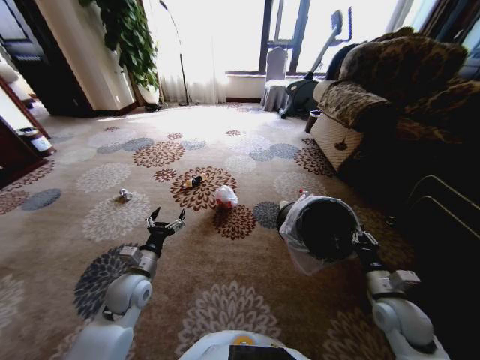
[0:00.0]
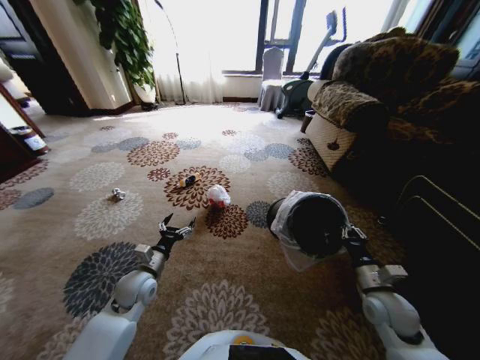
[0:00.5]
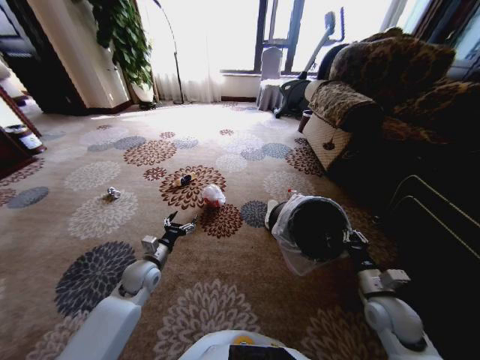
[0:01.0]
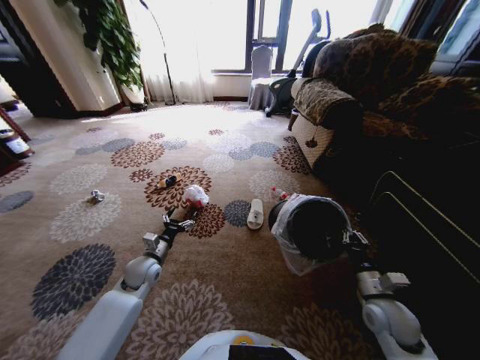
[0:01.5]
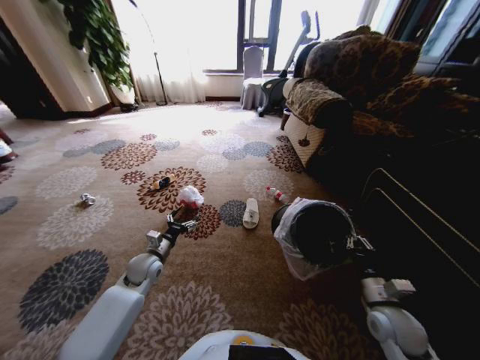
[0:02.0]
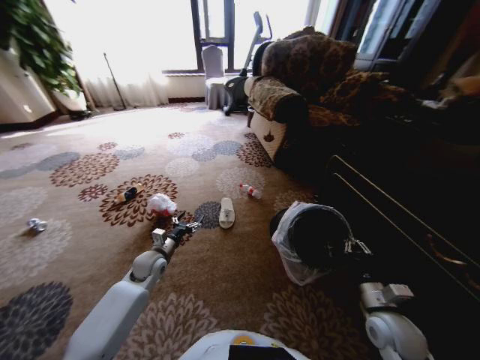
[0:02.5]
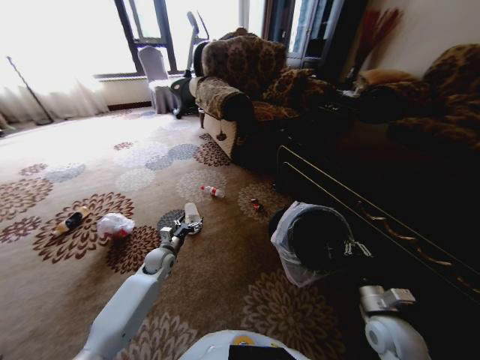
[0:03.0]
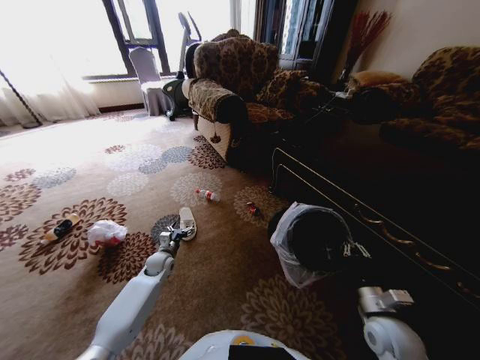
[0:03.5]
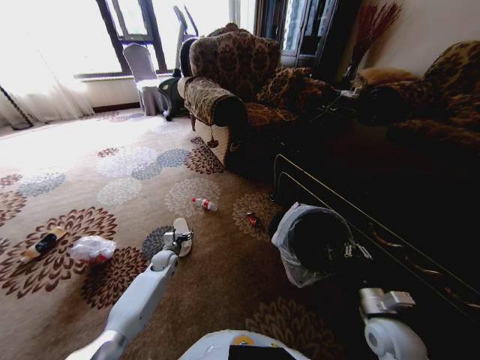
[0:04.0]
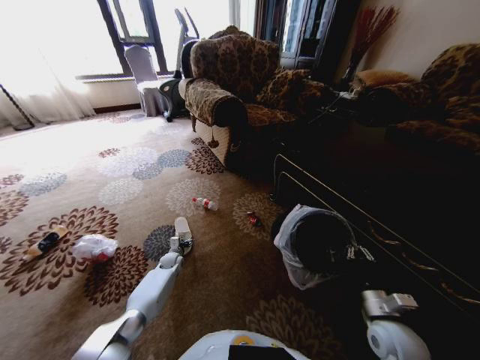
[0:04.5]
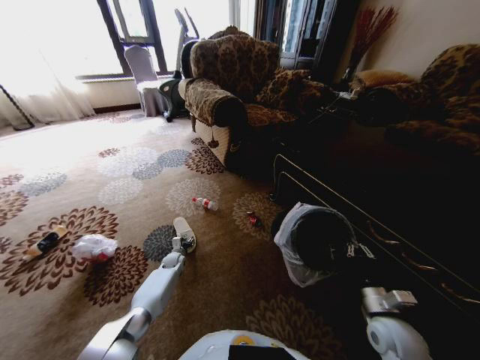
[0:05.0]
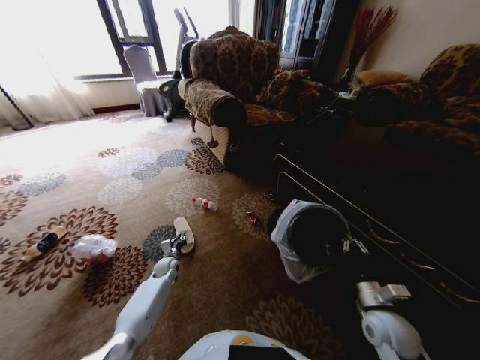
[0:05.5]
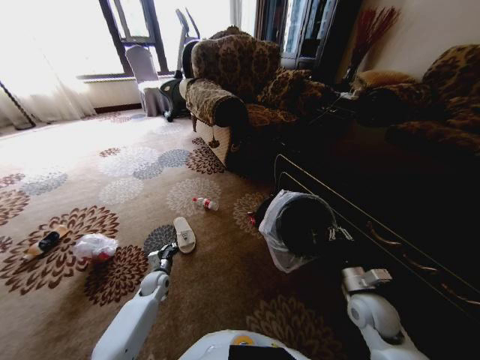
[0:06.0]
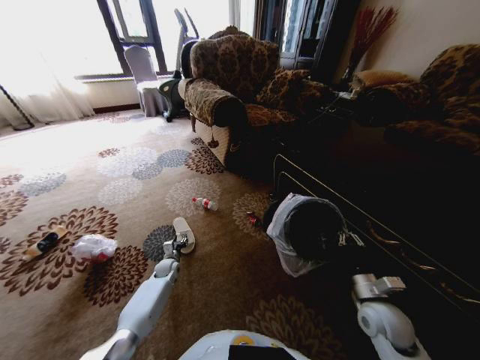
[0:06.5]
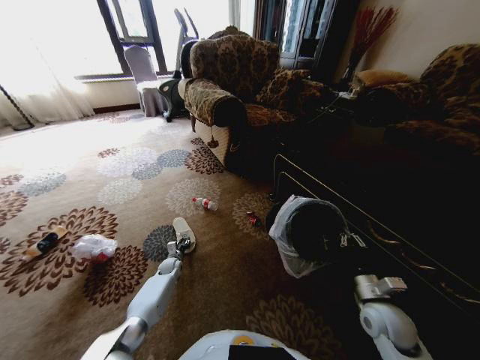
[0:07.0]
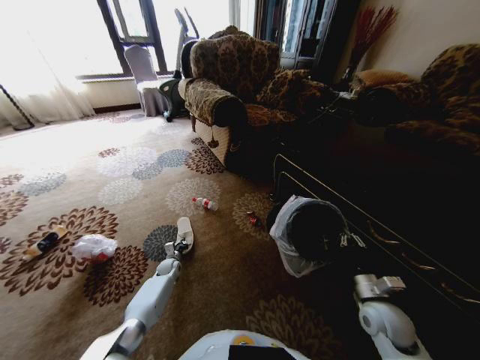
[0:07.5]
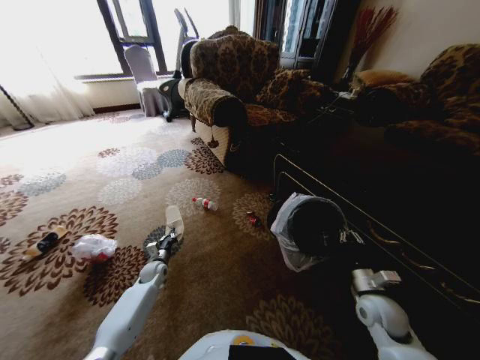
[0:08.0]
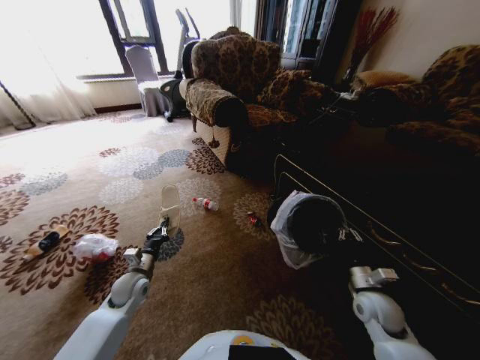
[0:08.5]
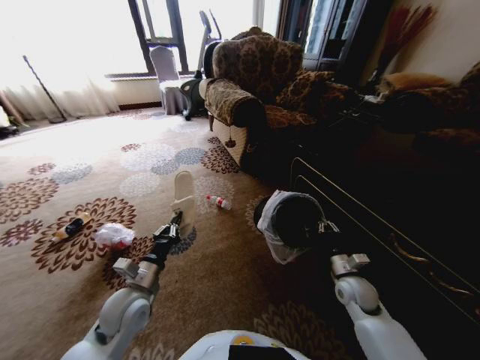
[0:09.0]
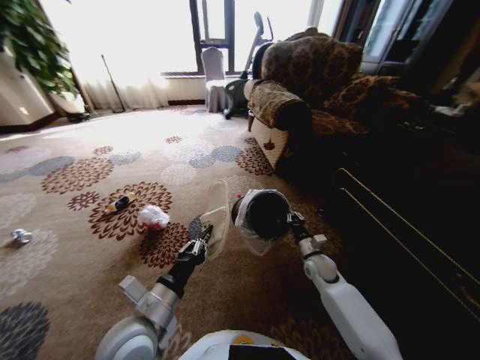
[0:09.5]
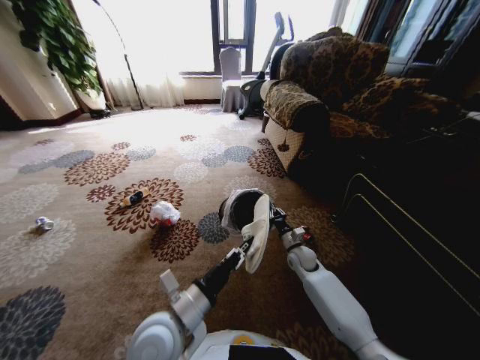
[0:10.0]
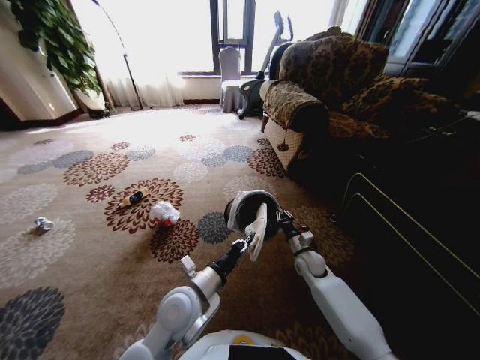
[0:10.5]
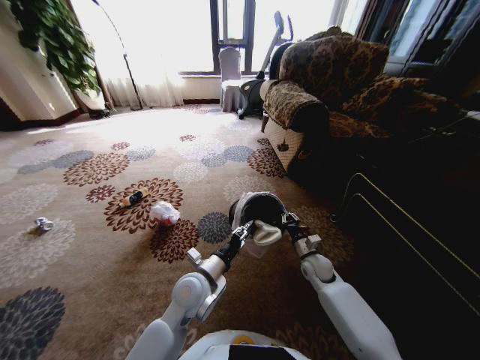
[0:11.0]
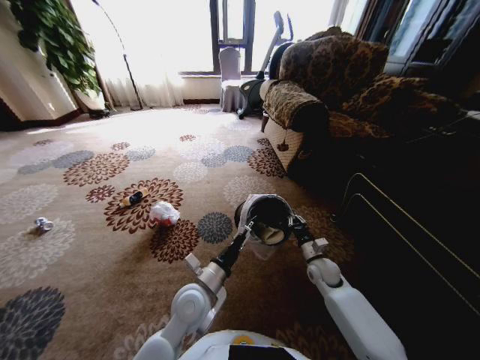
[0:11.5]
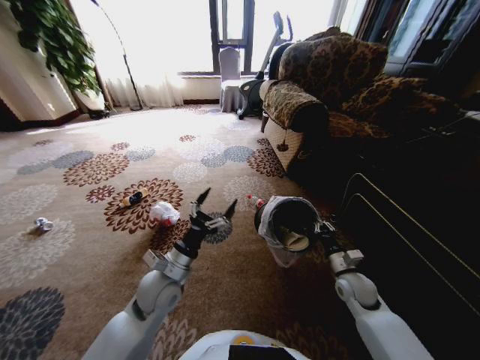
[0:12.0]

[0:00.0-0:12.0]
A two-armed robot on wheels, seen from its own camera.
Task of the whole recording: Pick up the trash from the ground and place it into the trash bin.
0:00.0 to 0:02.0: The left gripper heads forward, covering roughly 10 cm.
0:02.0 to 0:04.0: The left gripper shifts some 15 cm downward and forward.
0:04.0 to 0:06.0: The left gripper is displaced backward by approximately 10 cm, and closes up; the right gripper heads forward, covering some 5 cm.
0:06.0 to 0:08.0: The left gripper opens and closes again.
0:08.0 to 0:10.0: The left gripper goes about 40 cm upward, backward and to the right, while the right gripper travels forward and to the left by roughly 20 cm.
0:10.0 to 0:12.0: The left gripper shifts roughly 10 cm forward, and opens; the right gripper is displaced to the right and backward by about 15 cm.

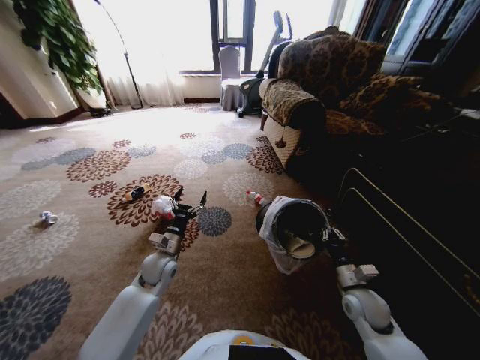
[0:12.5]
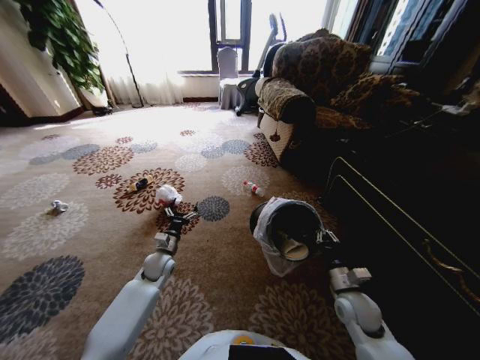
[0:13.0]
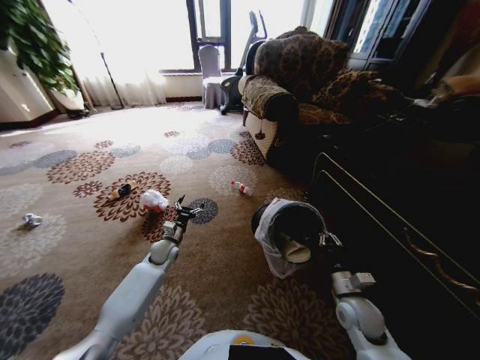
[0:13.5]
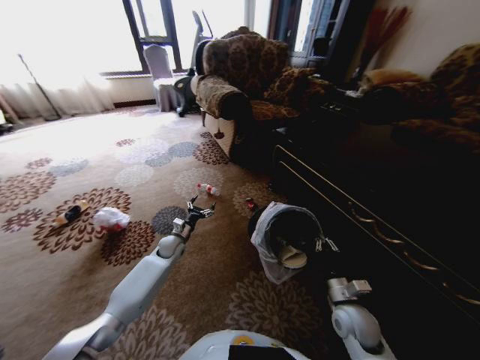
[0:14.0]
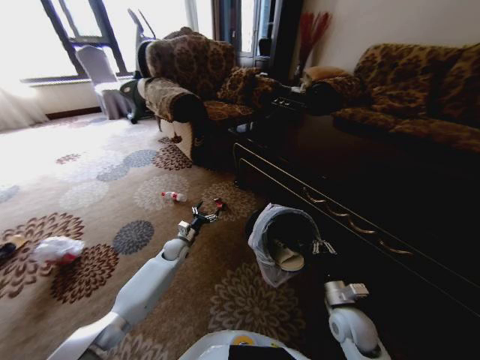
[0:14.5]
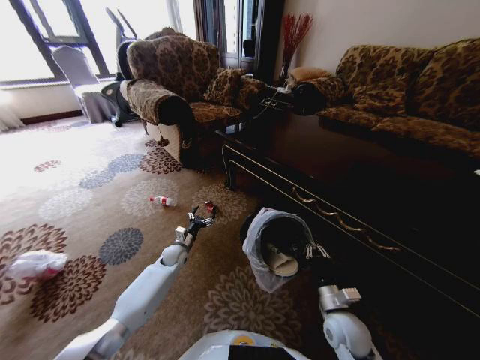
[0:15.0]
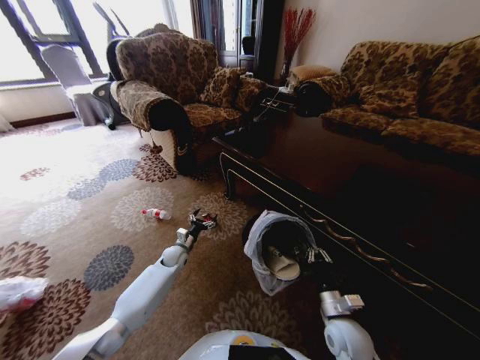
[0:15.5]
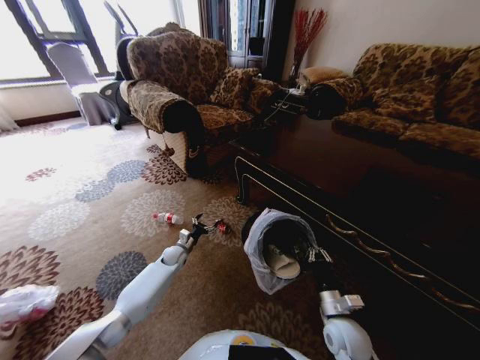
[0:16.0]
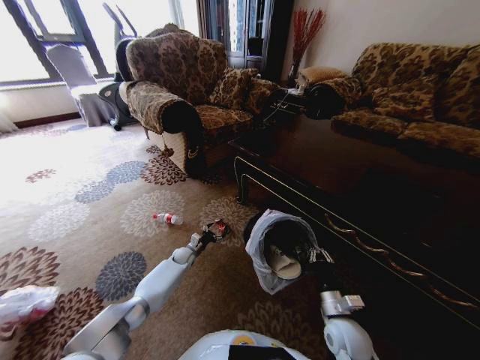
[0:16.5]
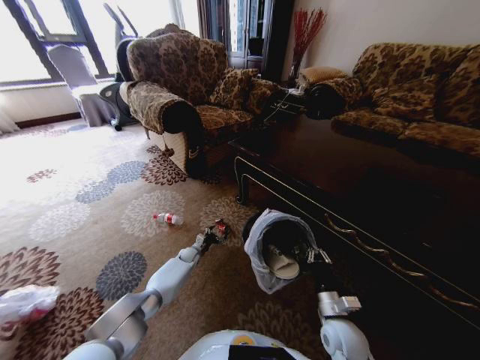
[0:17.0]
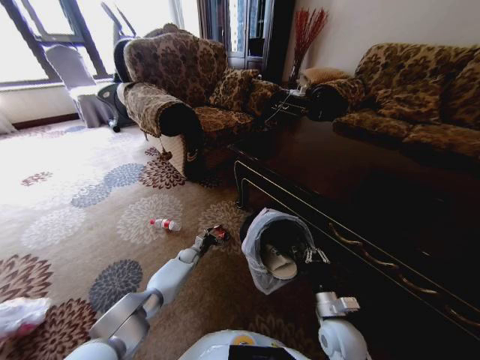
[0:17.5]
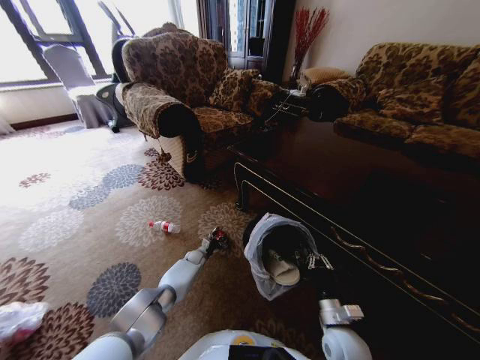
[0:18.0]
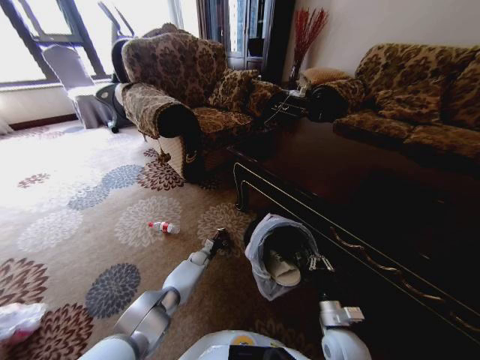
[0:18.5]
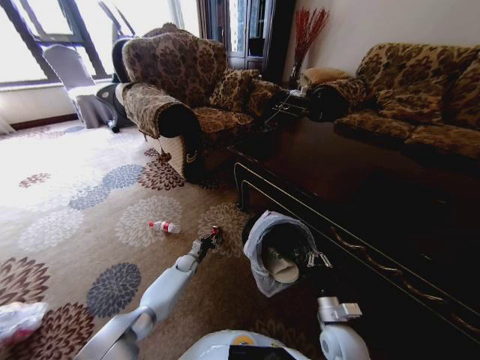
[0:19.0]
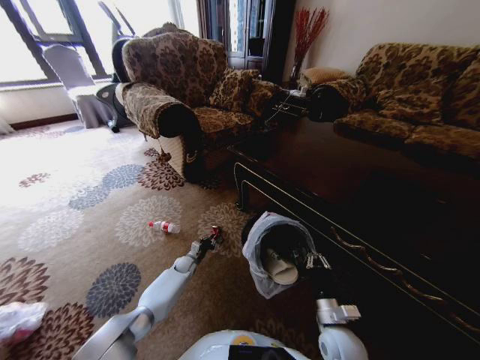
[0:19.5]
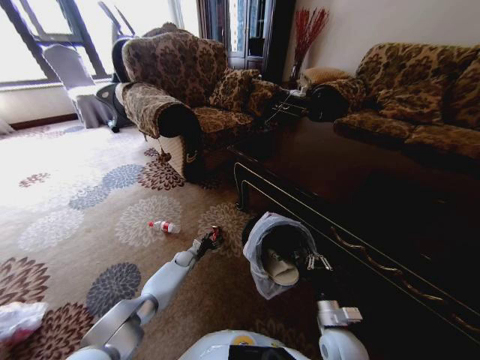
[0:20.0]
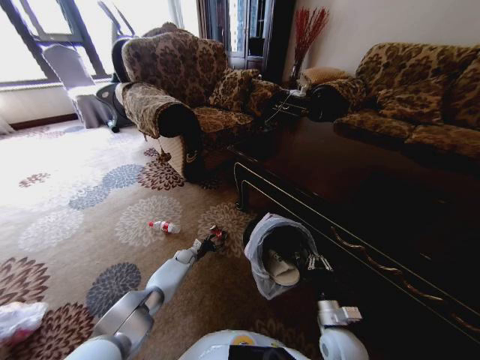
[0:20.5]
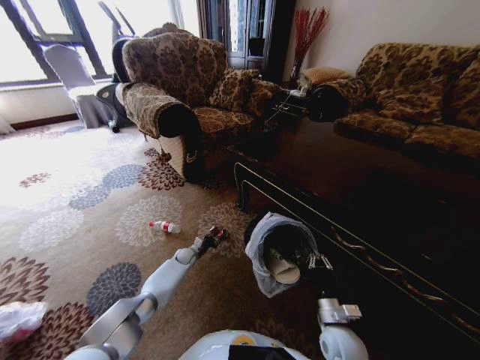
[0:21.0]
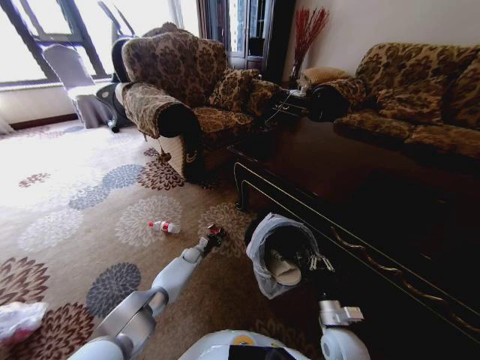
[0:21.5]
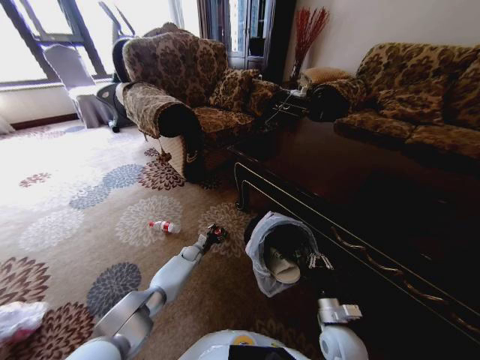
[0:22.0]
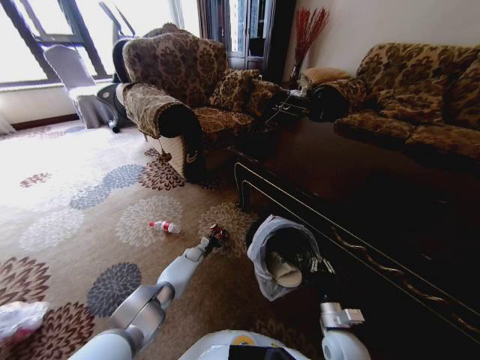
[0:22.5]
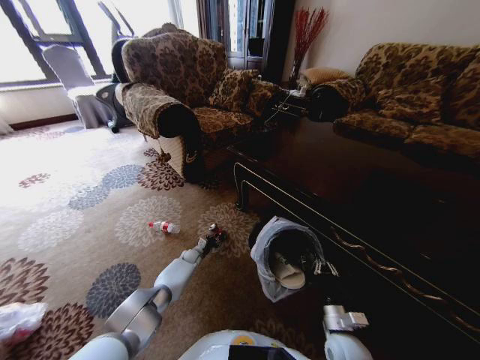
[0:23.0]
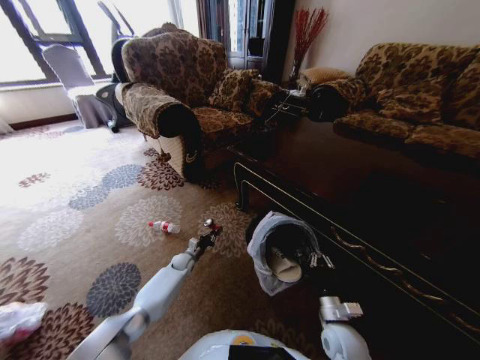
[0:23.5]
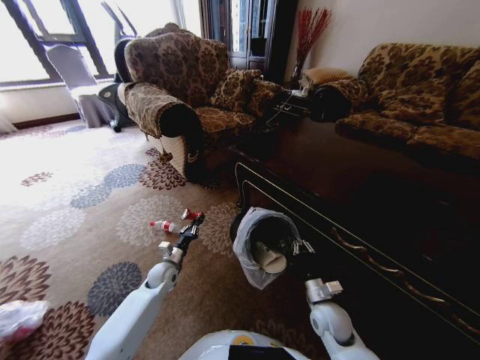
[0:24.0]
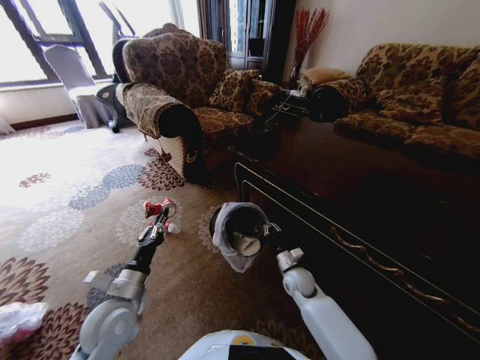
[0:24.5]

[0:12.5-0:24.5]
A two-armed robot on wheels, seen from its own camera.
Task of the whole recording: Pick up the trash from the ground and place it into the trash bin.
0:12.5 to 0:14.5: The left gripper shifts roughly 15 cm forward and downward; the right gripper shifts by about 5 cm.
0:14.5 to 0:16.5: The left gripper is displaced downward by some 10 cm.
0:16.5 to 0:18.5: The left gripper goes some 10 cm to the right and downward, and closes up.
0:18.5 to 0:20.5: The left gripper moves to the left, about 5 cm, and closes, then reopens.
0:20.5 to 0:22.5: The left gripper closes and opens again.
0:22.5 to 0:24.5: The left gripper travels upward and backward by about 40 cm, and closes. Meanwhile the right gripper travels forward and to the left by about 20 cm.

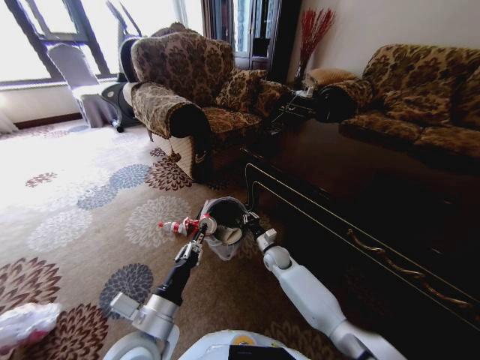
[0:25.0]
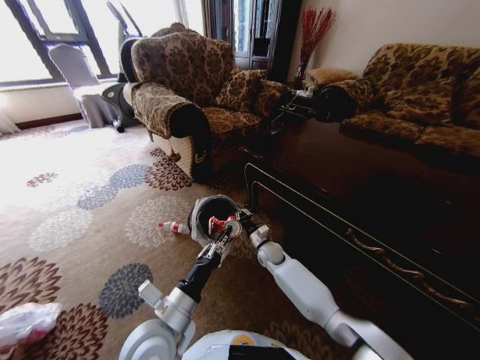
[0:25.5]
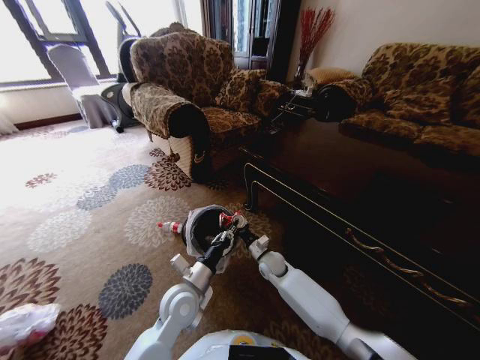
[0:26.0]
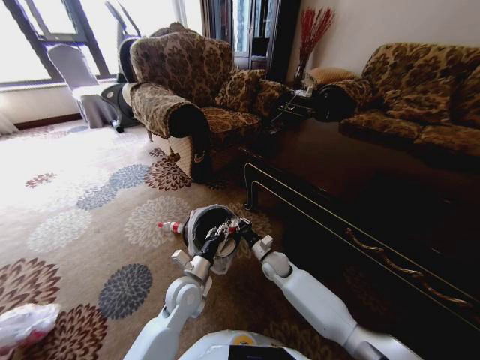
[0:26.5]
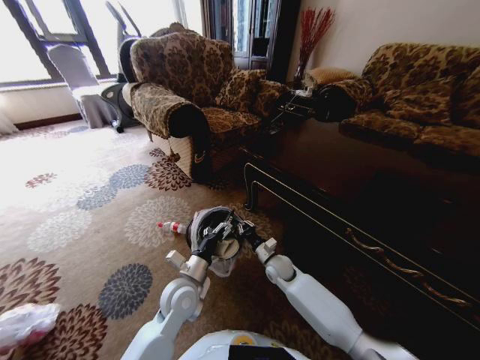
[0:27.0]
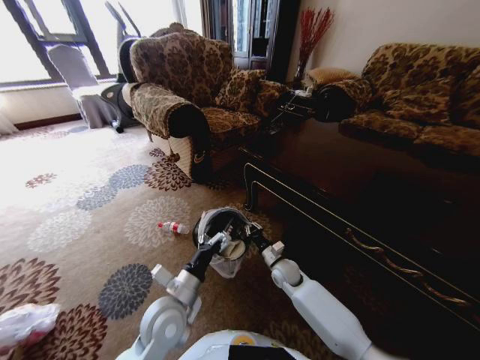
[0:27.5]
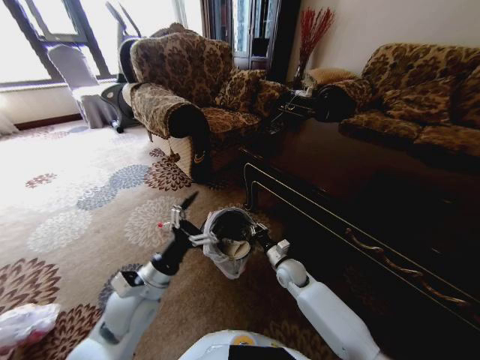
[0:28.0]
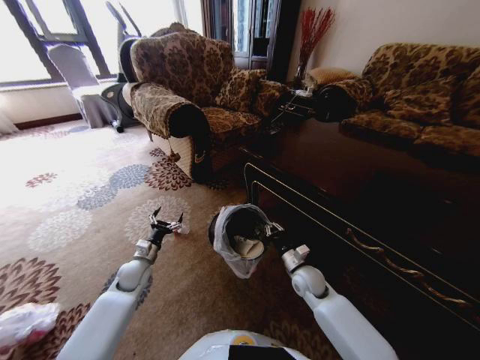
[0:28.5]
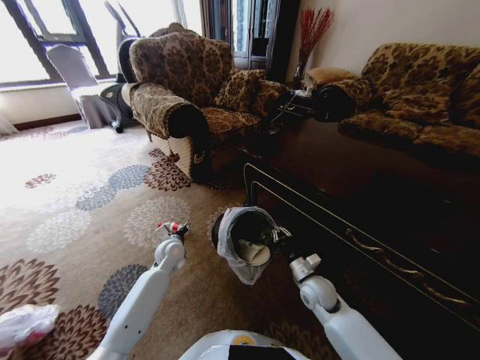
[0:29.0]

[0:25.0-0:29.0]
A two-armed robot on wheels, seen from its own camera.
Task of the whole recording: Pick up the trash from the ground and place it into the trash bin.
0:25.0 to 0:27.0: The left gripper shifts some 15 cm forward and downward, and opens up.
0:27.0 to 0:29.0: The right gripper heads to the right and backward, covering roughly 15 cm; the left gripper is displaced forward and to the left by approximately 15 cm.
